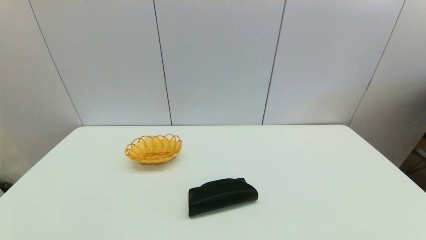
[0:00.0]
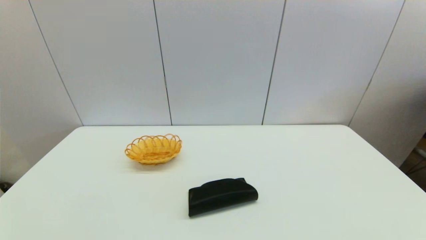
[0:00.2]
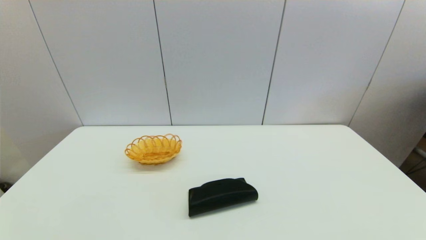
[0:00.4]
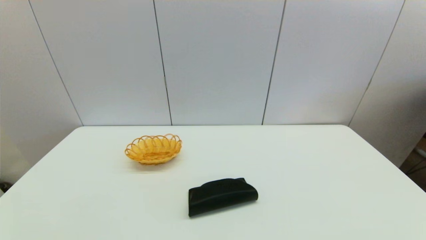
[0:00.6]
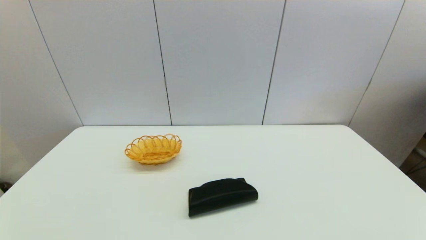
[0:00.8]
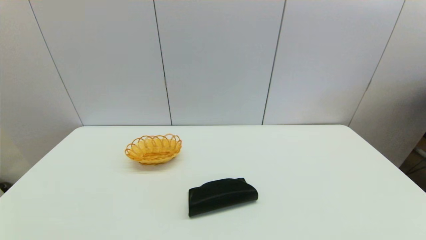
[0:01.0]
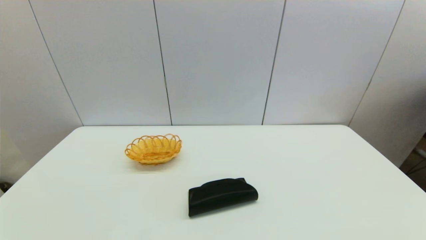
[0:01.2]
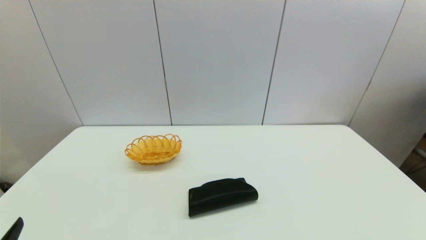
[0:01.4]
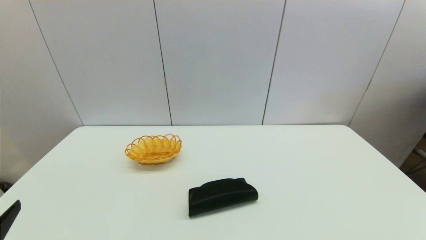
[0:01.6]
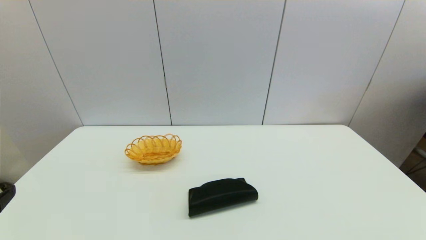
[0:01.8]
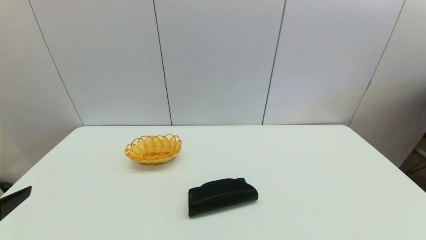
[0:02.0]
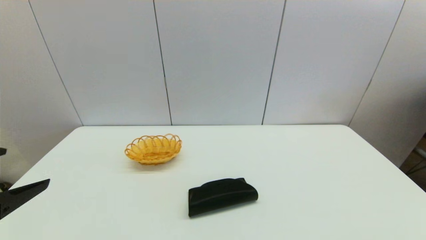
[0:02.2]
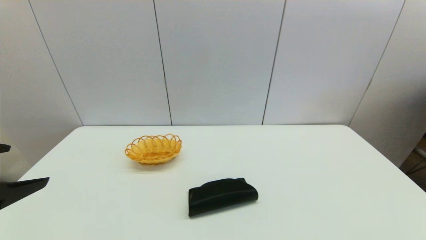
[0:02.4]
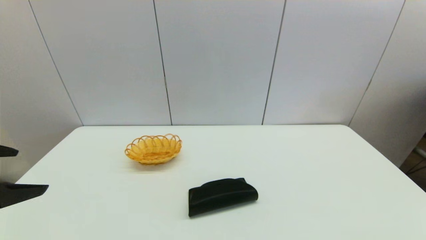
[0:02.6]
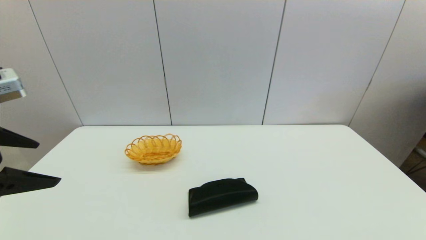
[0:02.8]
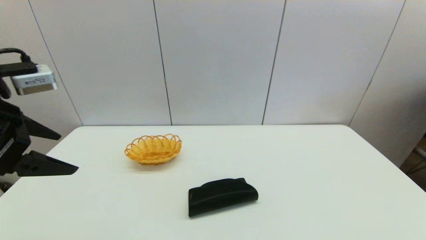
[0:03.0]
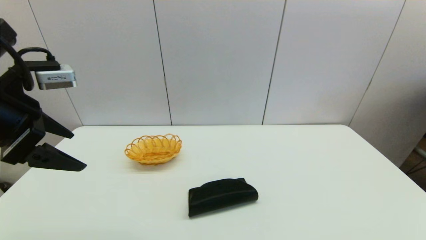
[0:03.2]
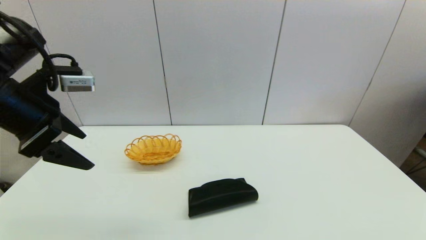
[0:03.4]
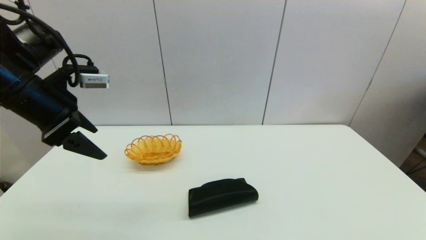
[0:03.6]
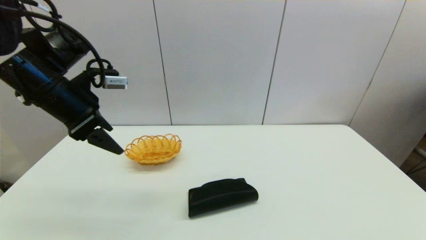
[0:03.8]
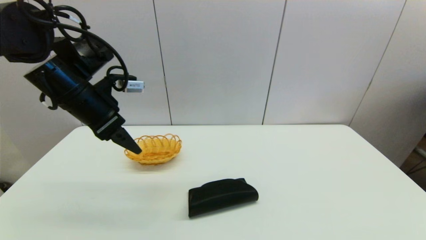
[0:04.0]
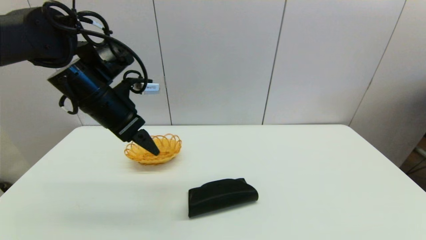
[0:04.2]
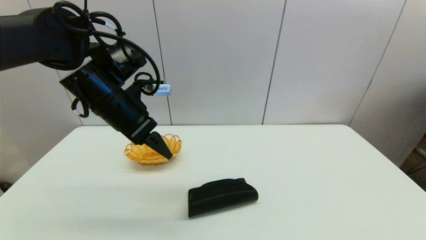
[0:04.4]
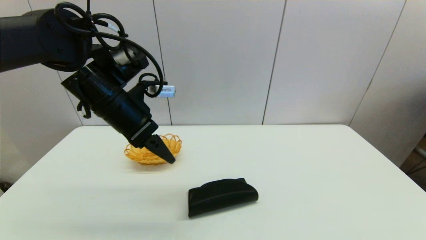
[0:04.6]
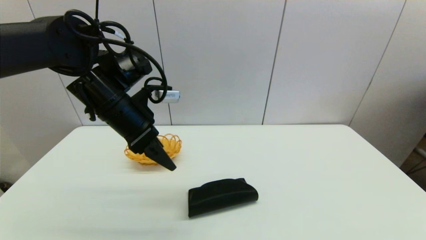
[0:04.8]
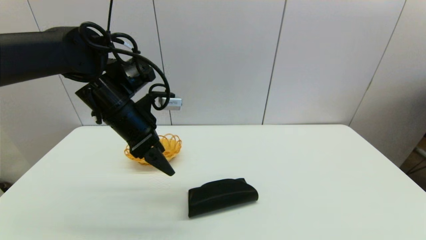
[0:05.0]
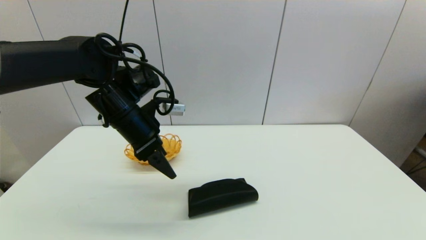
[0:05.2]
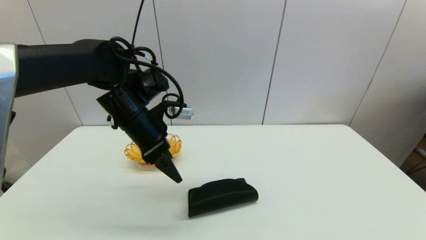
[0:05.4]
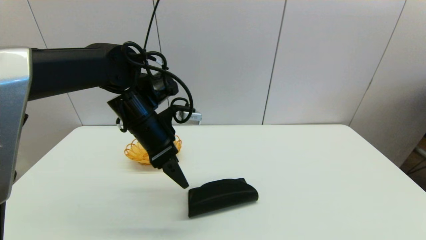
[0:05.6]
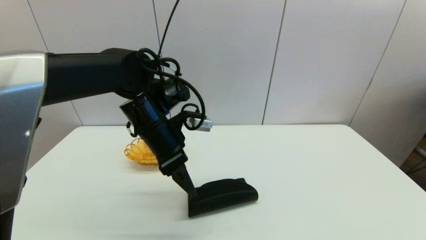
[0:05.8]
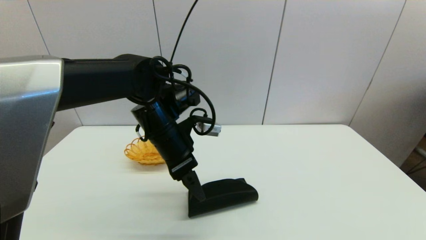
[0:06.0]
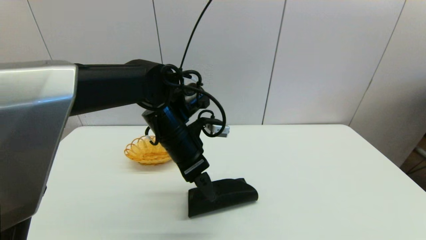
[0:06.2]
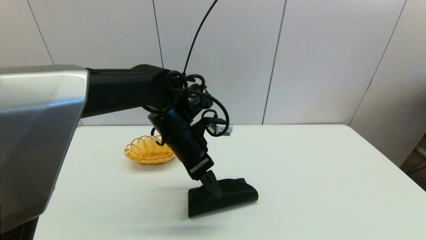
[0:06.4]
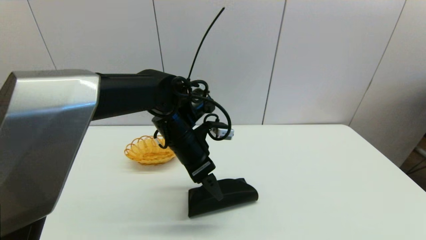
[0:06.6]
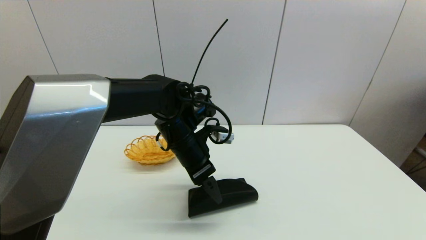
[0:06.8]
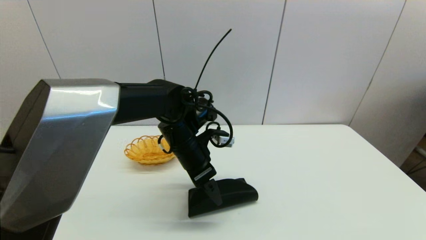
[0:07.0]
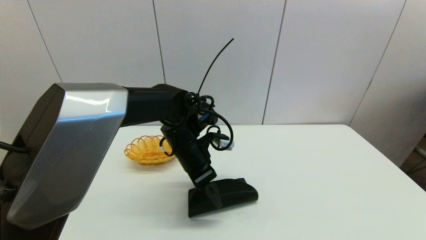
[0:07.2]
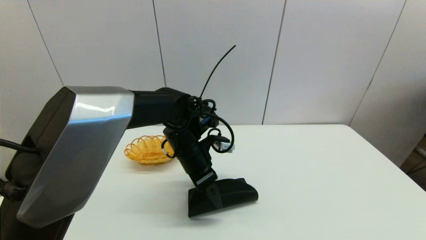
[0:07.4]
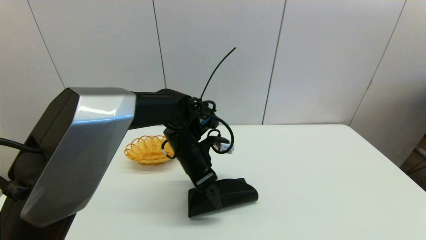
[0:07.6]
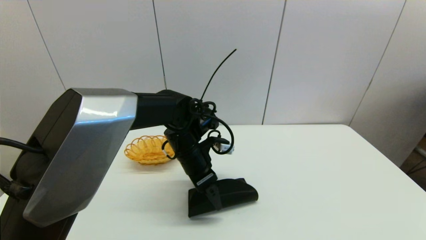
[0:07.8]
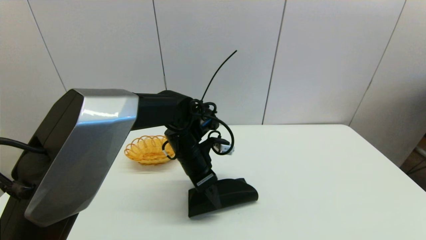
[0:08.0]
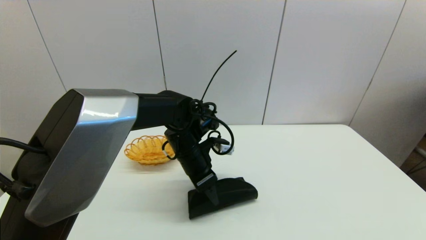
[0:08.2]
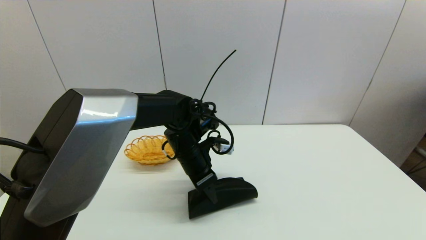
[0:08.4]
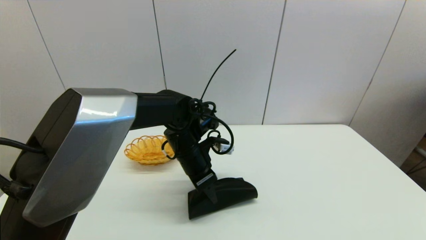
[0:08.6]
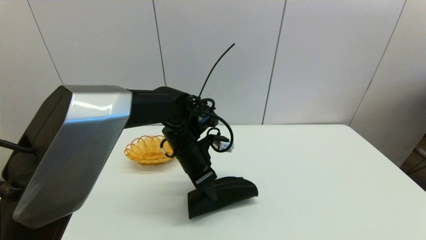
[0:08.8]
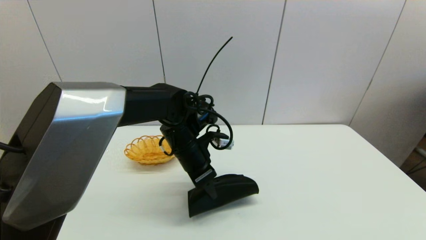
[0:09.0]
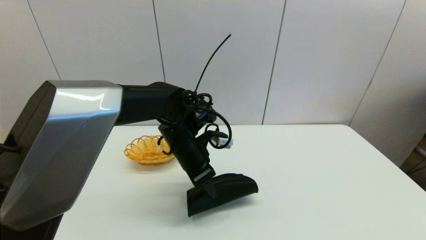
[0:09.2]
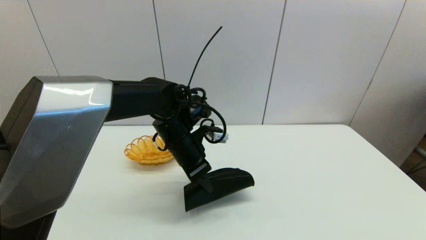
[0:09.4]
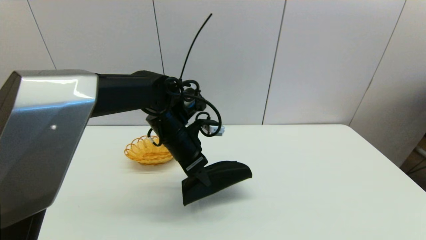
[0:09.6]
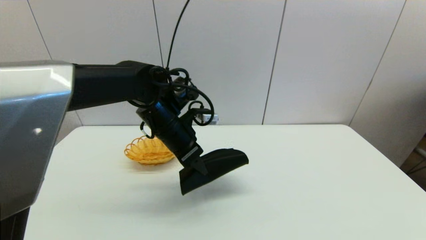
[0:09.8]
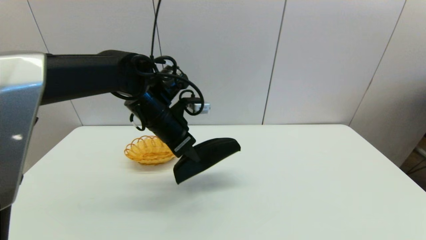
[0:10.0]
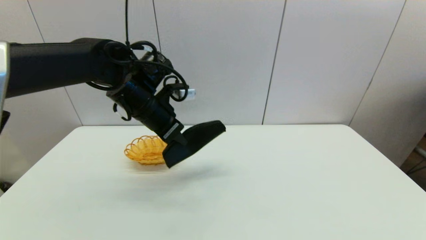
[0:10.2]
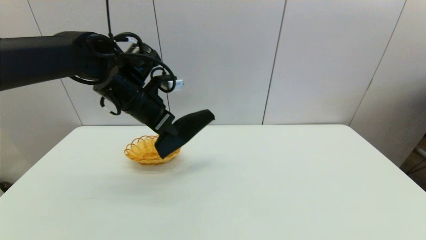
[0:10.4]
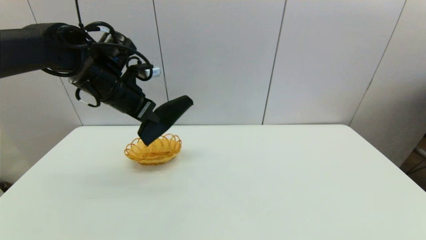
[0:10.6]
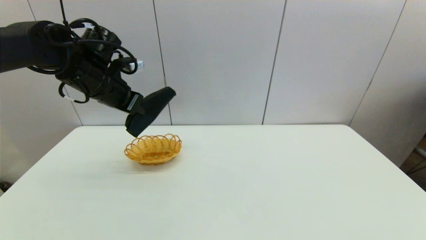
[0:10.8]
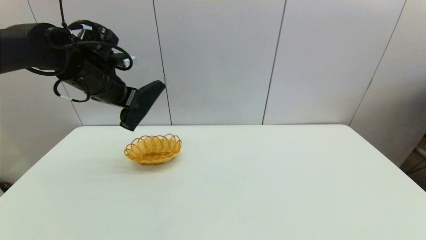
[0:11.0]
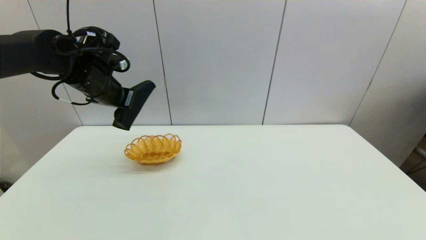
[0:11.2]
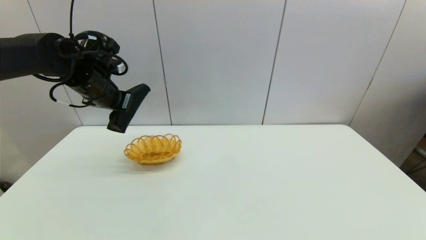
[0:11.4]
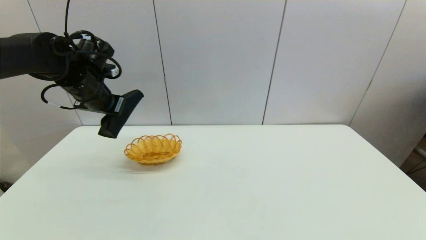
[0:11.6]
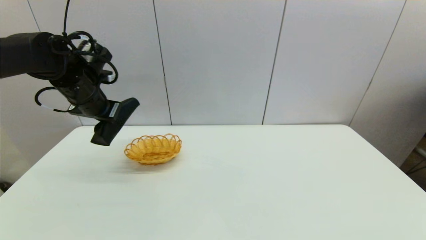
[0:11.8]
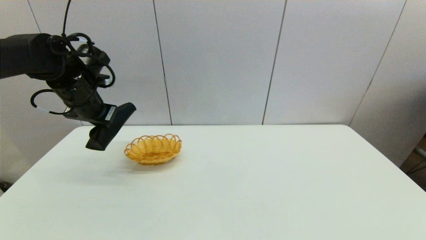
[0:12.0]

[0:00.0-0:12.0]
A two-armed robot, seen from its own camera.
Step, 0:01.4 to 0:08.6: Grasp the glasses case with left gripper.
0:01.6 to 0:03.0: The left gripper travels forward and upward by approximately 20 cm.
0:03.0 to 0:04.4: The left gripper heads forward and to the right, covering some 15 cm.
0:04.4 to 0:06.0: The left gripper is displaced to the right and downward by approximately 10 cm.
0:06.0 to 0:07.6: The left gripper shifts about 5 cm downward.
0:07.6 to 0:09.0: The left gripper closes its fingers.
0:09.0 to 0:10.4: The left gripper shifts approximately 15 cm to the left and upward.
0:10.4 to 0:12.0: The left gripper heads to the left, covering roughly 10 cm.

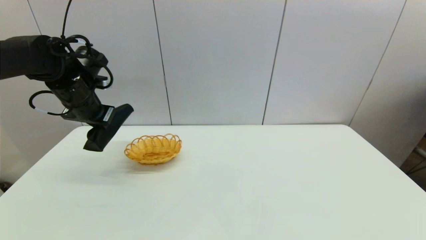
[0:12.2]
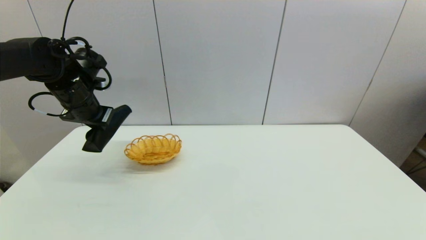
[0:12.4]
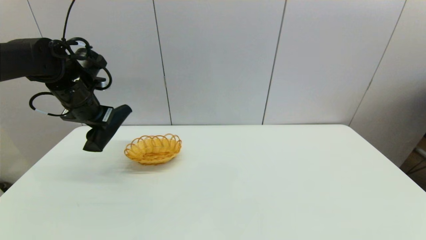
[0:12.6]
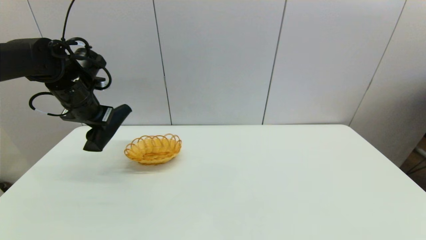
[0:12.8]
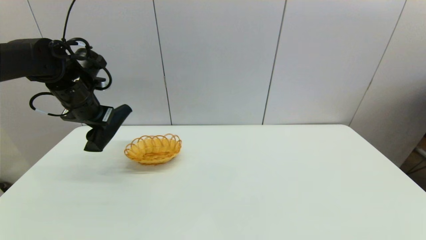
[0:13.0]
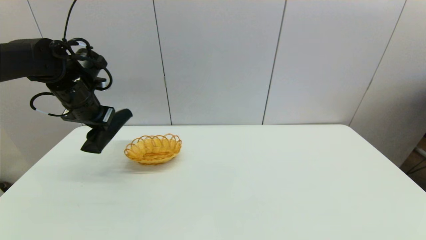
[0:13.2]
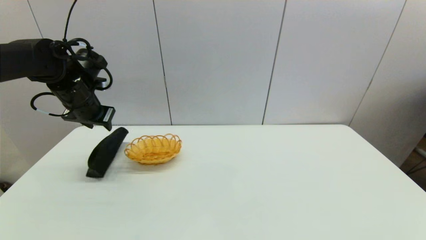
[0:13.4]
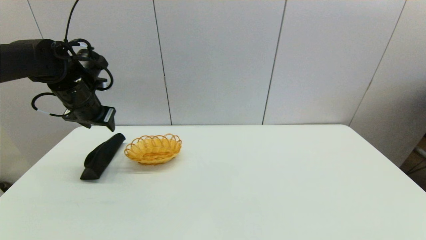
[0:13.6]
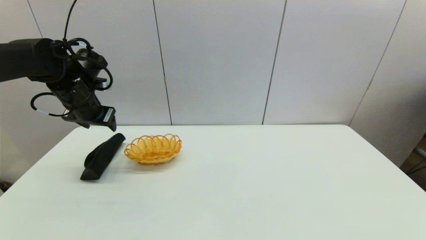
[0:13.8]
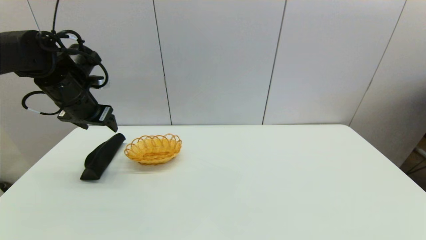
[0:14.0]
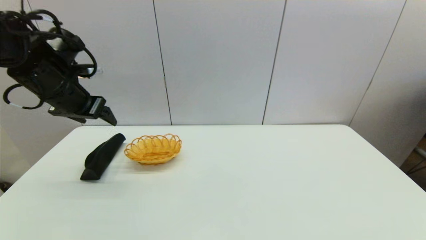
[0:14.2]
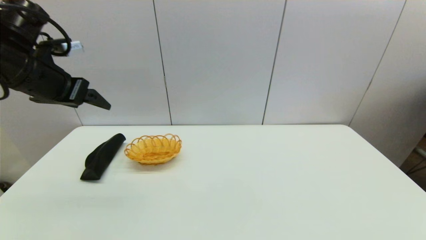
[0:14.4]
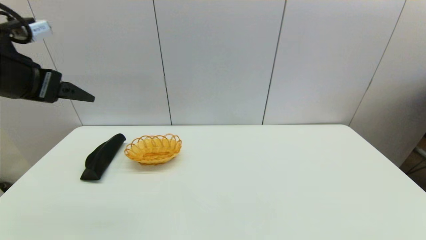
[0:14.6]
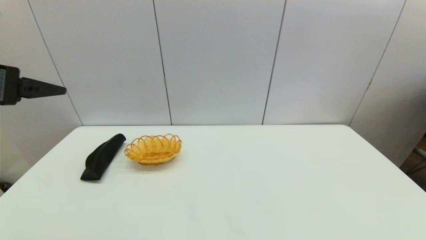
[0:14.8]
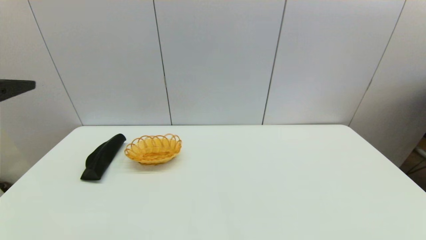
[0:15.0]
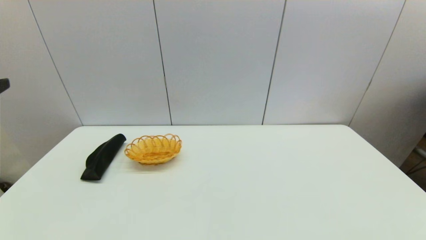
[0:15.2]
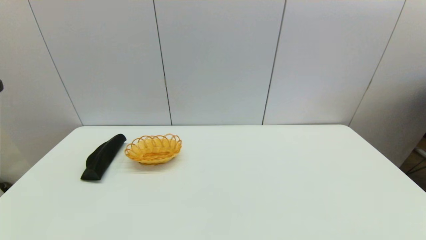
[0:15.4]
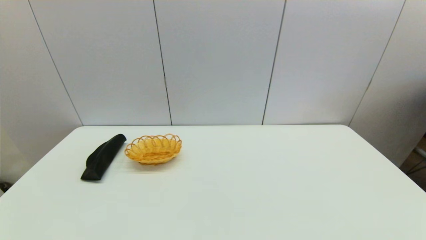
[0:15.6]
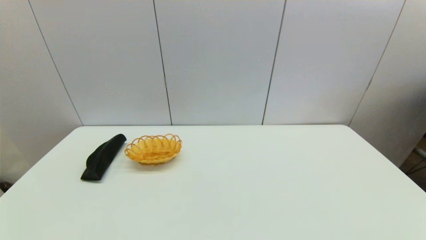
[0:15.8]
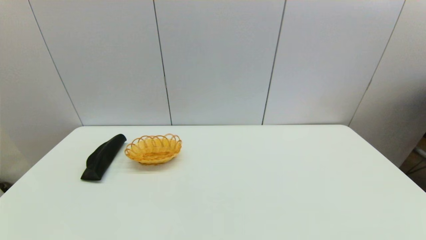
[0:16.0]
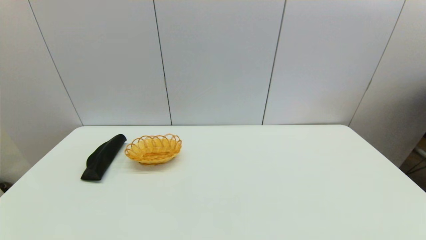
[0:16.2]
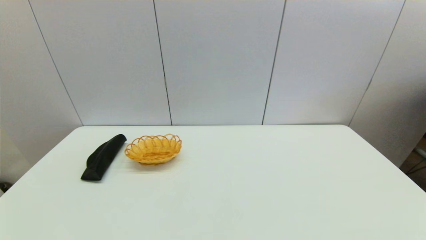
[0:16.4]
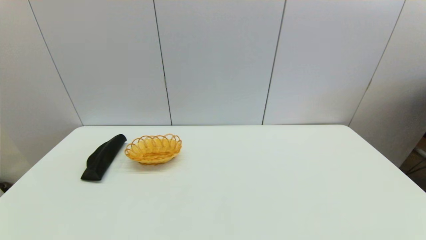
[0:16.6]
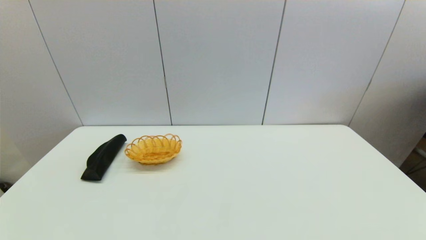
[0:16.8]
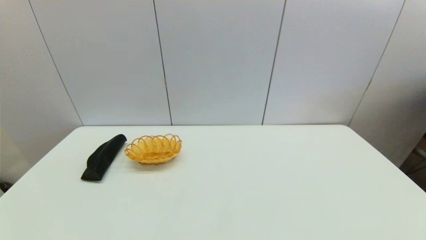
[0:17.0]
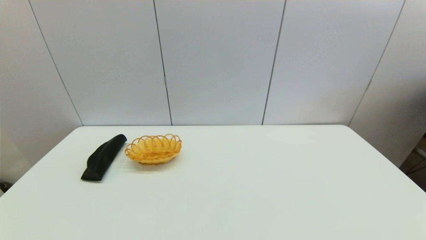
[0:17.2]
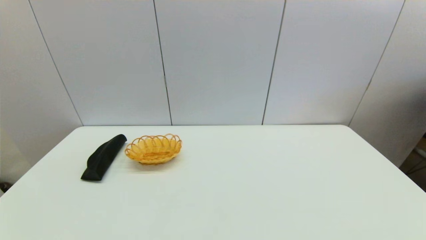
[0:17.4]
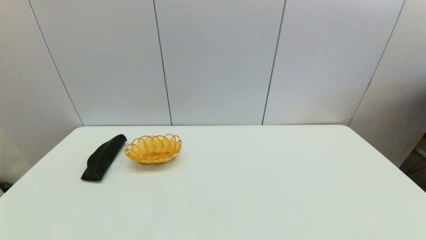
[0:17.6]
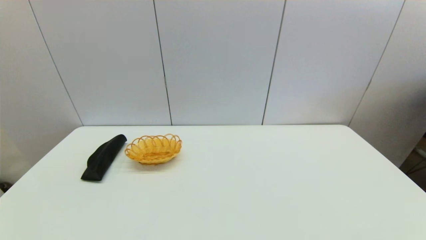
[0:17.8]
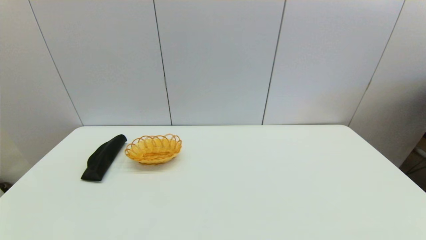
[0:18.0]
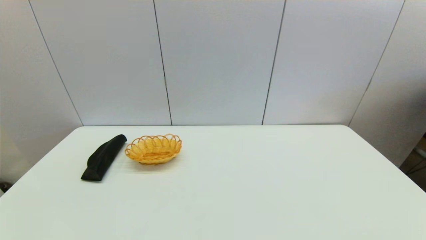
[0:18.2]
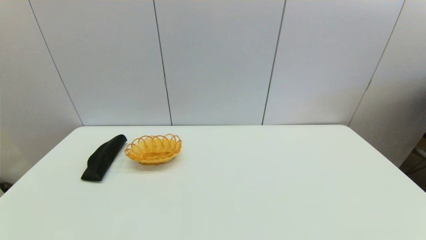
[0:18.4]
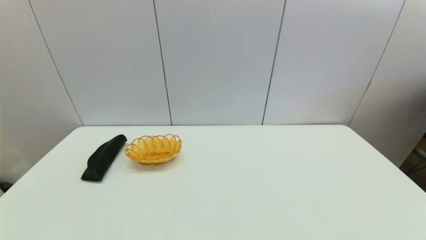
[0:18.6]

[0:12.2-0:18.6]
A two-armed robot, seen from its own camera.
0:12.2 to 0:13.8: The left gripper opens its fingers.
0:13.8 to 0:15.4: The left gripper goes some 30 cm backward.
